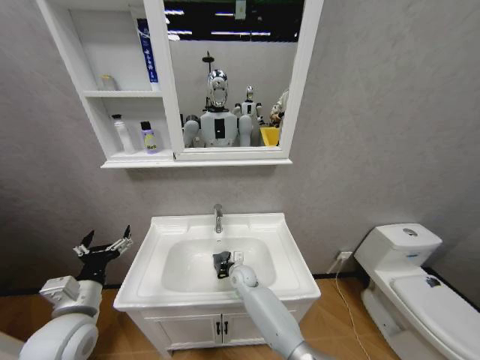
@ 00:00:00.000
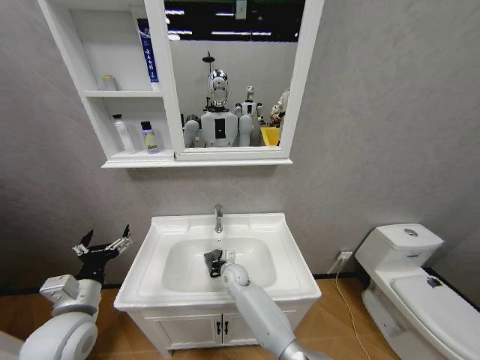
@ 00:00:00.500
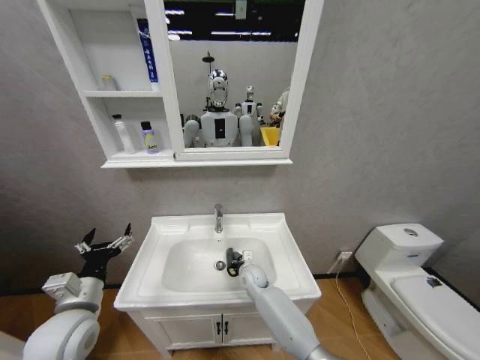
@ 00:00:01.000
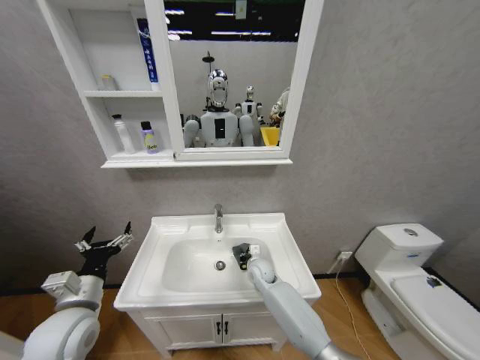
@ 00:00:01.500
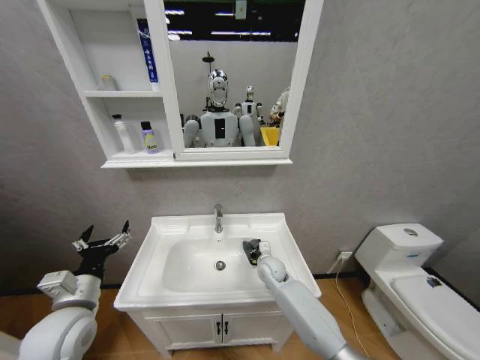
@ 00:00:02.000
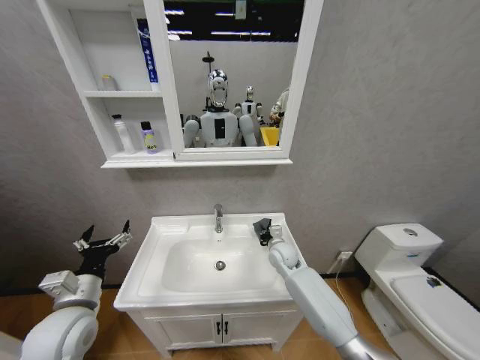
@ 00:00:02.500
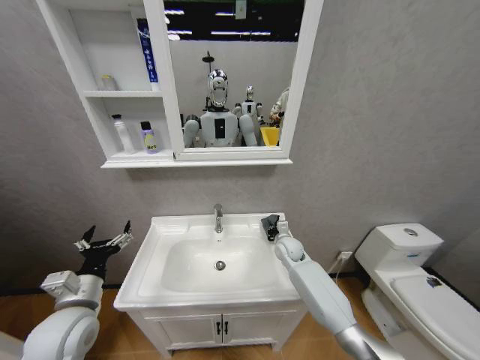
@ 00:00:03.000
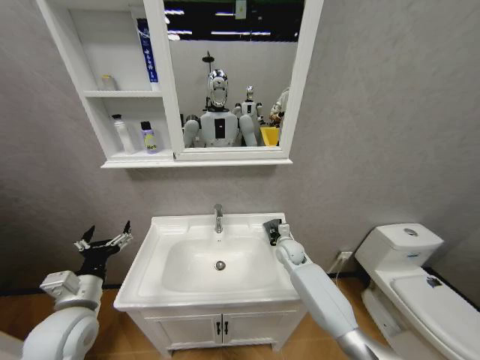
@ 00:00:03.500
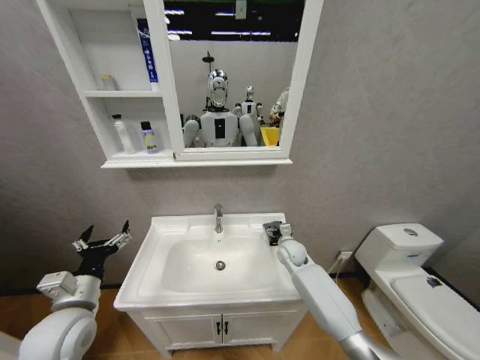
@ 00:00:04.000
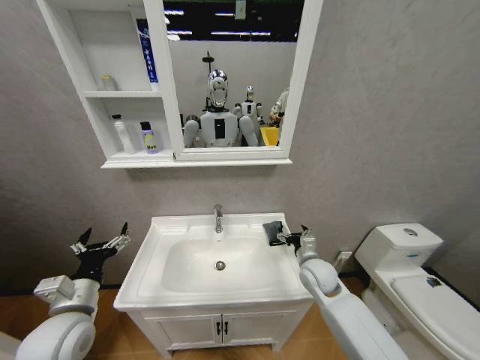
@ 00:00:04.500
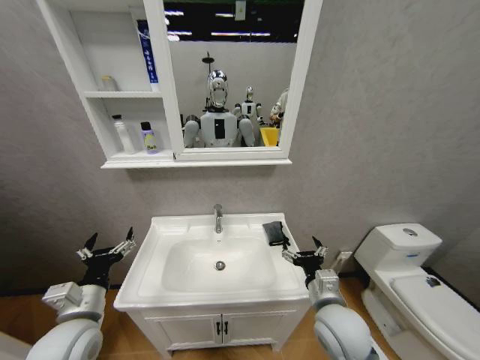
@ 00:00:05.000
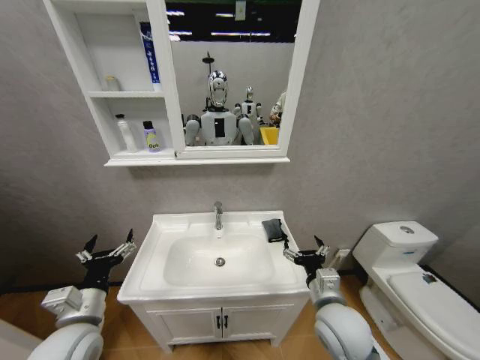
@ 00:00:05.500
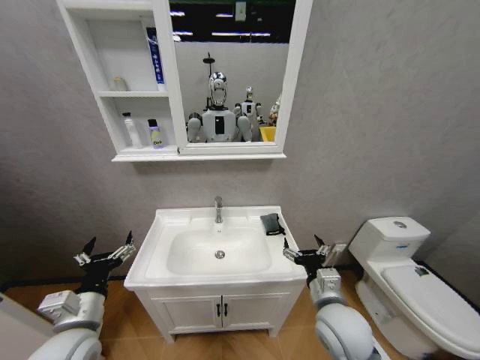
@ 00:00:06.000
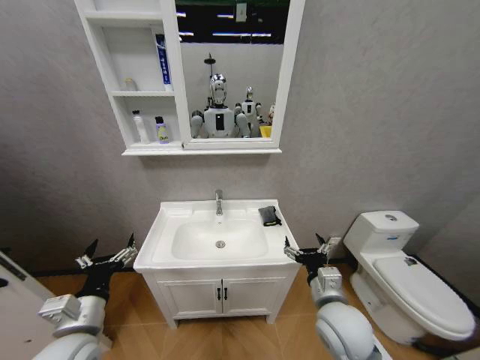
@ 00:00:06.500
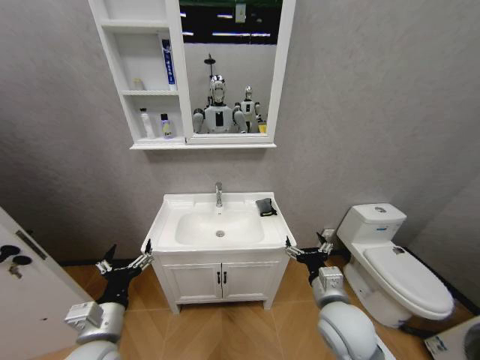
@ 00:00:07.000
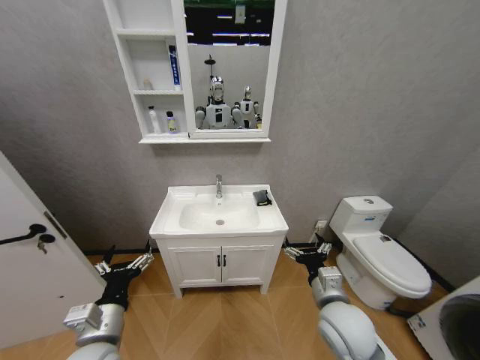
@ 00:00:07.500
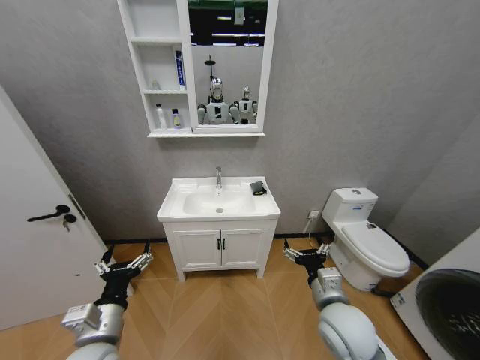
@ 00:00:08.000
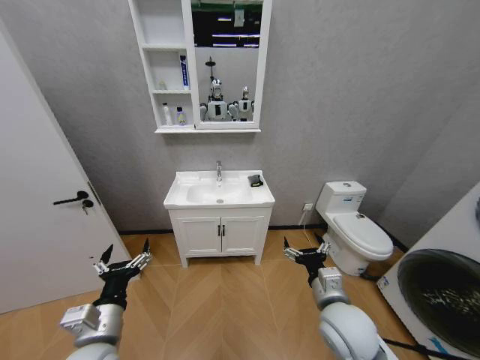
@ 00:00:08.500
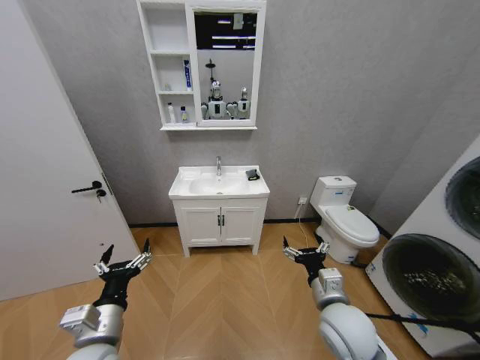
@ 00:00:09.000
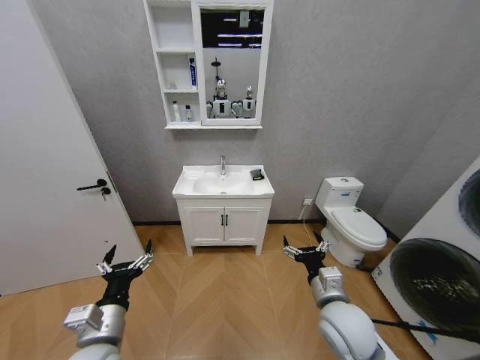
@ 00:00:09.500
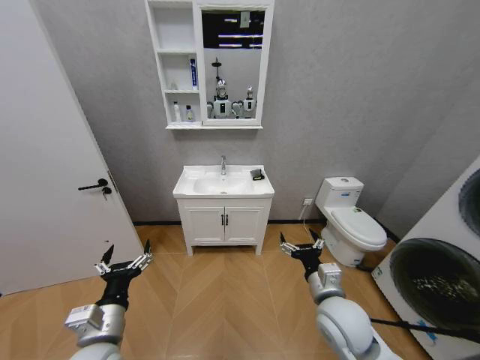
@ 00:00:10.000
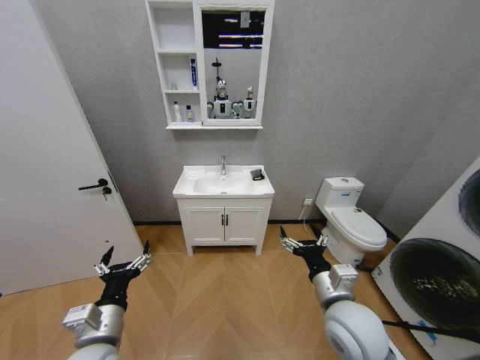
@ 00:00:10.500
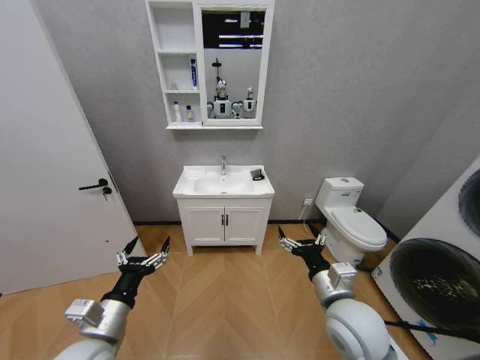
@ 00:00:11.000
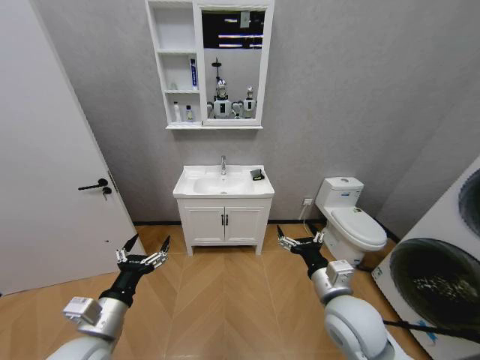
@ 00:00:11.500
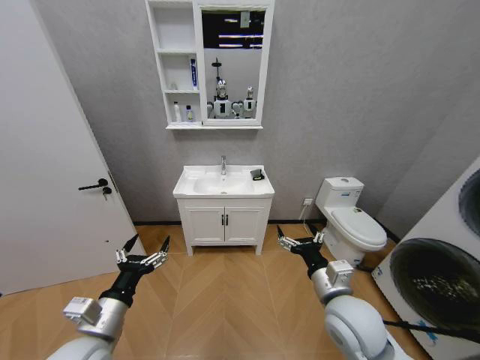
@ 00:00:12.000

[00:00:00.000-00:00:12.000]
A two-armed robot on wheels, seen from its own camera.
Task of the whole recording: Move facial cleanser and shampoo from washbasin to cabinet, then wipe washbasin with towel.
00:00:00.000 to 00:00:02.000: The right gripper shifts approximately 10 cm to the right and upward.
00:00:02.000 to 00:00:04.000: The right gripper heads to the right, covering roughly 5 cm, and opens its fingers.
00:00:04.000 to 00:00:06.000: The right gripper is displaced backward and upward by roughly 25 cm.
00:00:06.000 to 00:00:08.000: The left gripper moves roughly 5 cm.
00:00:10.000 to 00:00:12.000: The grippers make only small movements.

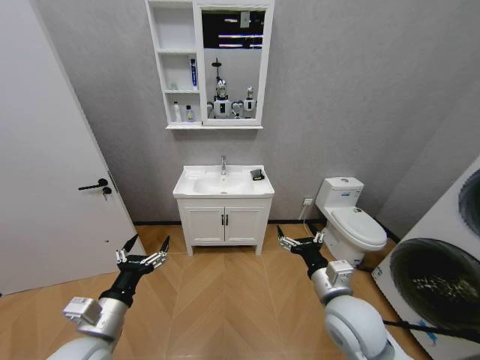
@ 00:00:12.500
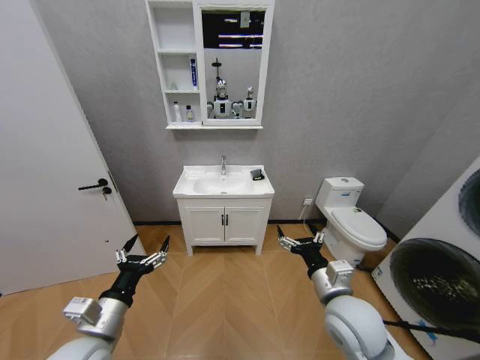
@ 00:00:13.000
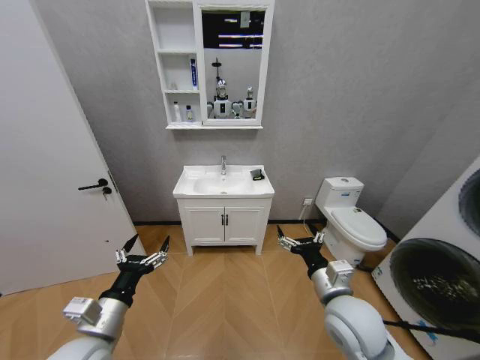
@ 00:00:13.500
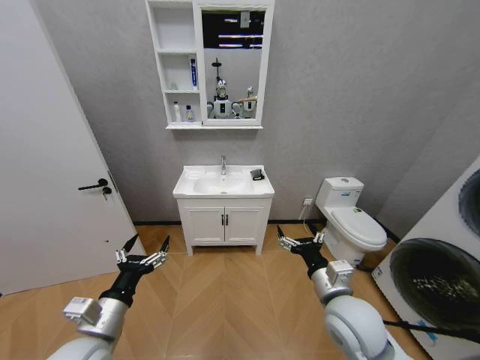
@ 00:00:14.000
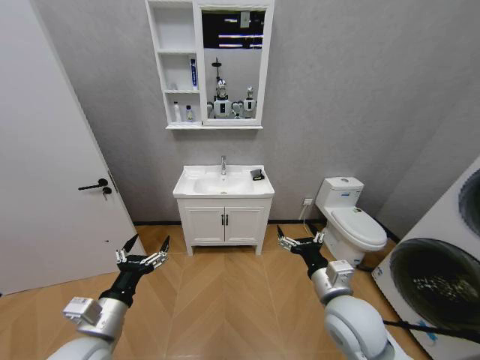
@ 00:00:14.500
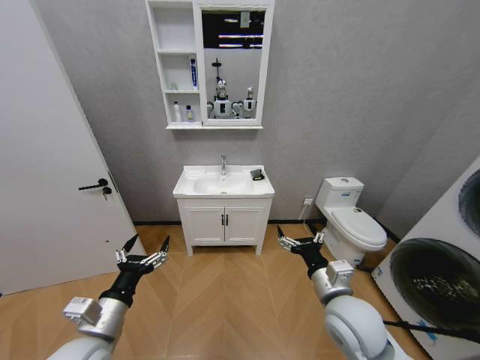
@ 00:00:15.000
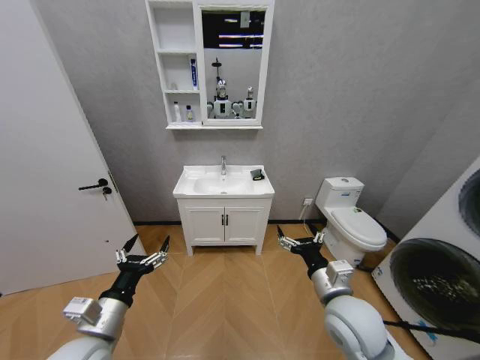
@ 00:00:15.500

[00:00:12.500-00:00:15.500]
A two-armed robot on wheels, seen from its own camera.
Task of the whole recording: Move facial cleanser and shampoo from washbasin to cabinet, then wipe washbasin with towel.
00:00:12.500 to 00:00:15.500: The two grippers keep their place.

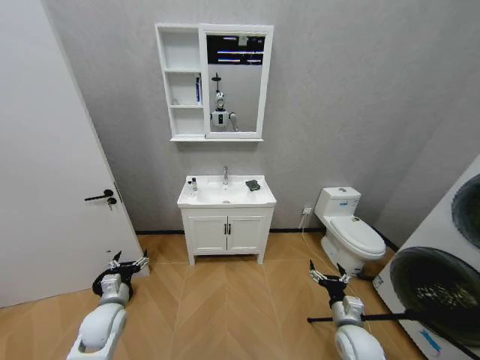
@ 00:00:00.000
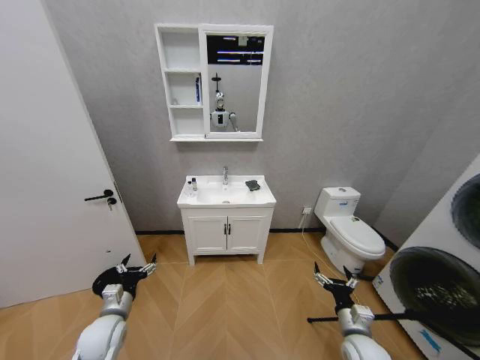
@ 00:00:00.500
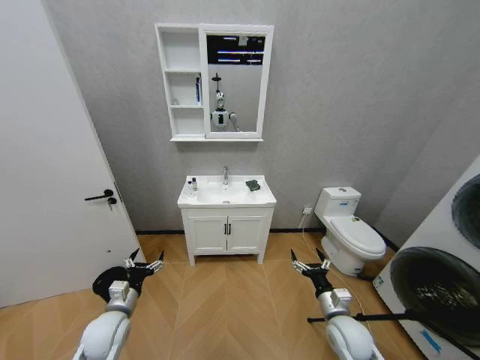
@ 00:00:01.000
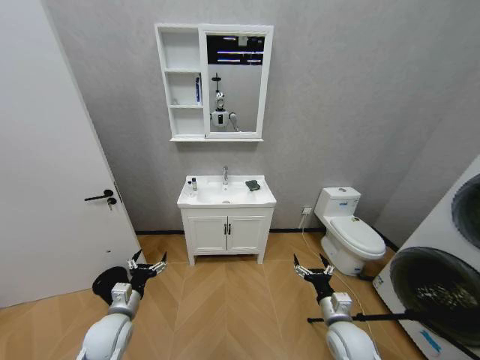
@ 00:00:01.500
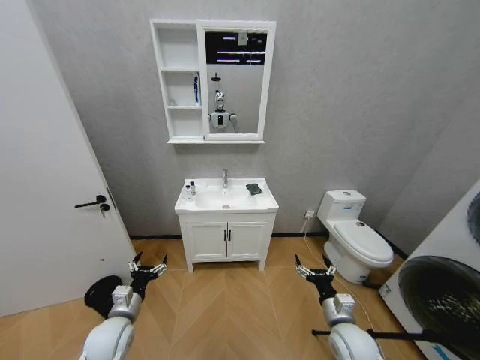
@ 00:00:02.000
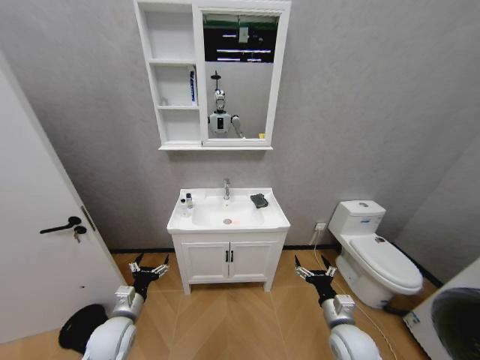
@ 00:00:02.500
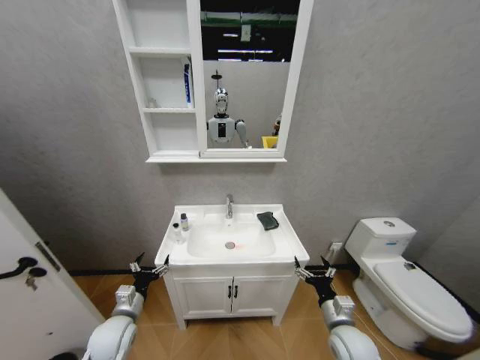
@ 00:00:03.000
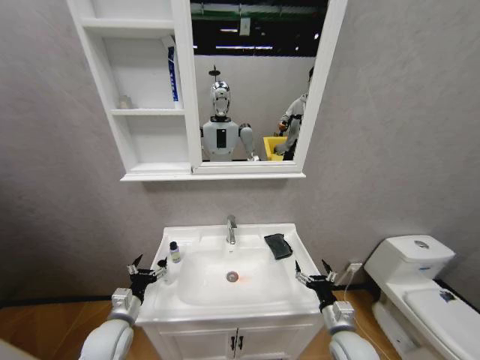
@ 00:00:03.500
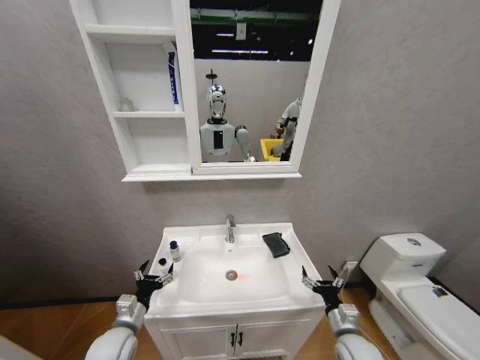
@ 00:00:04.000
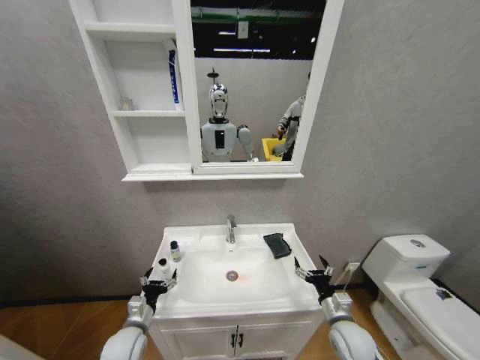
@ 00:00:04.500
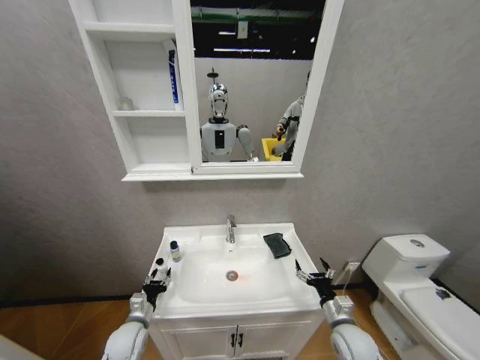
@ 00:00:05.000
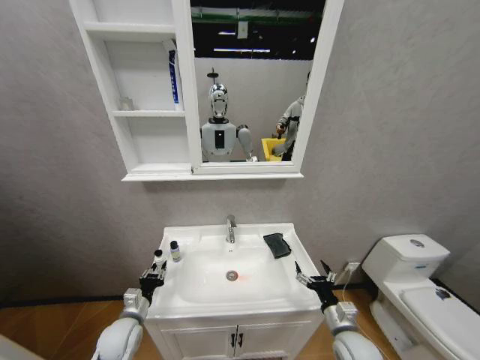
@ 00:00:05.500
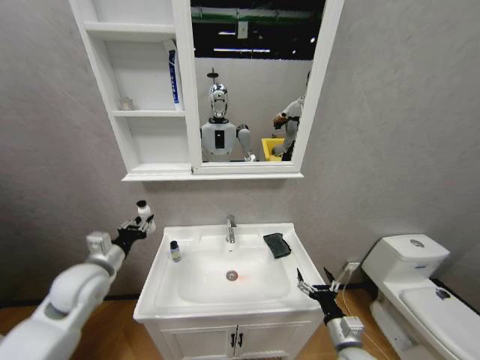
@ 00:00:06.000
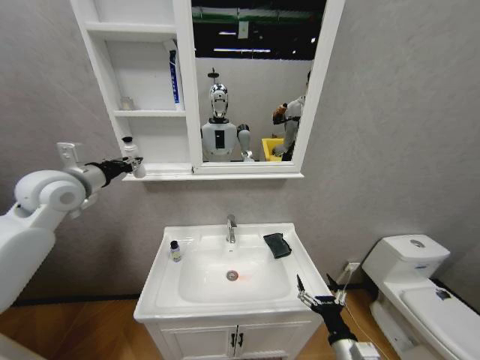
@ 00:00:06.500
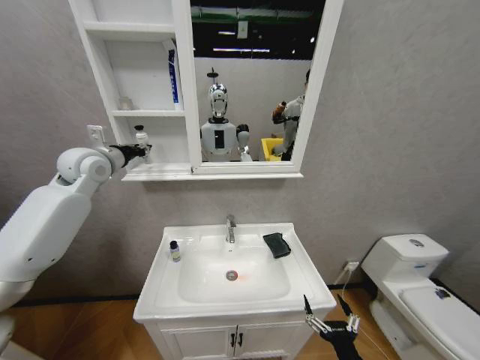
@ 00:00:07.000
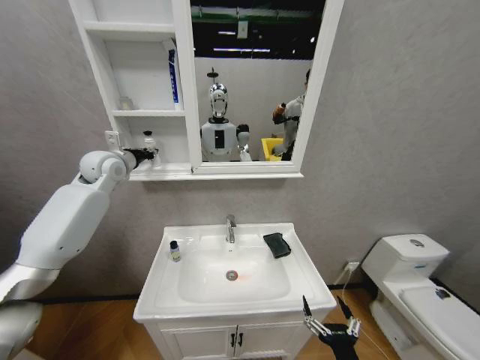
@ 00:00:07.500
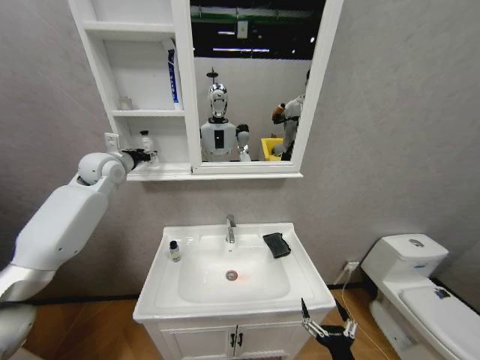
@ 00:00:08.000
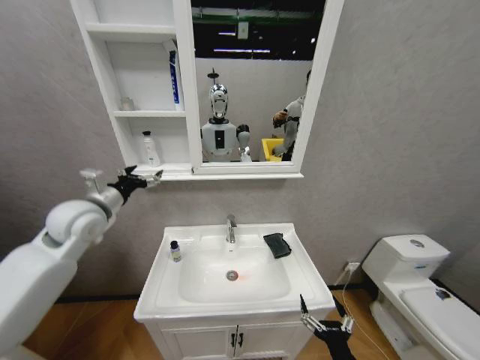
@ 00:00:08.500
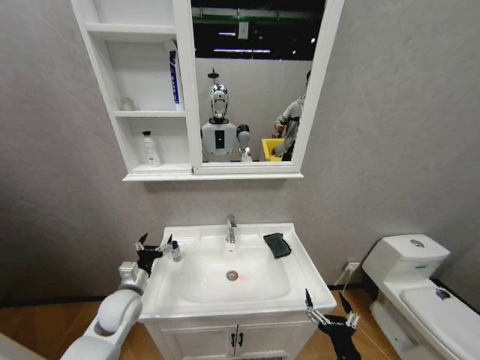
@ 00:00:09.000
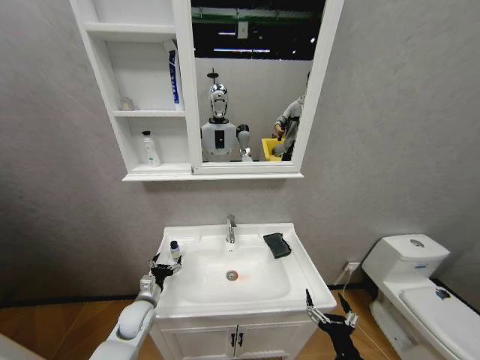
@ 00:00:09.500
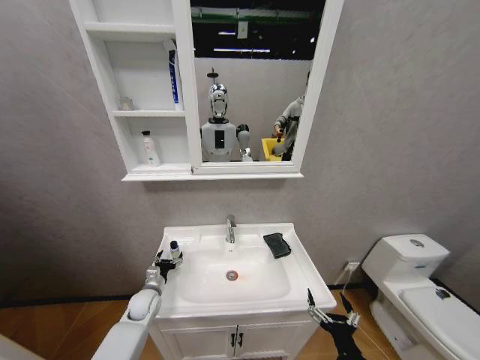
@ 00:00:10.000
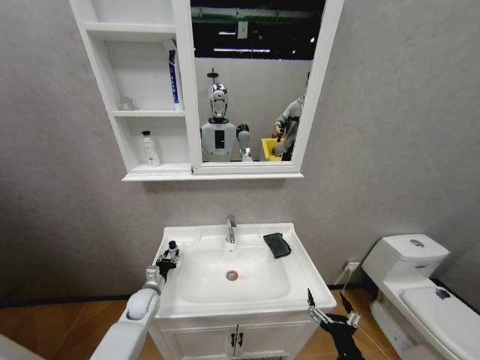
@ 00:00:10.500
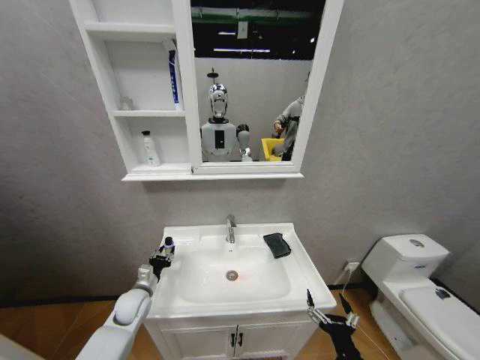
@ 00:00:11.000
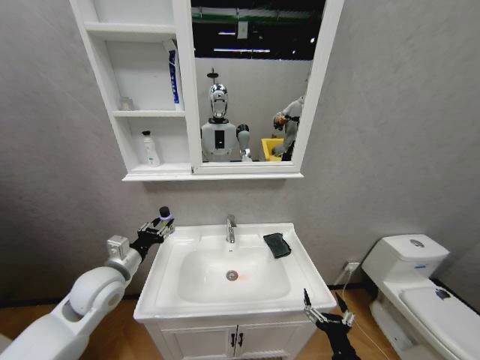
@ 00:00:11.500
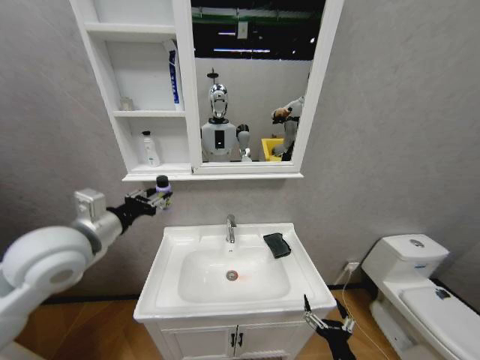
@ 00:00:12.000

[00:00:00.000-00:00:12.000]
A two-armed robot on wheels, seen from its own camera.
Task of the whole recording: Move facial cleanser and shampoo from washbasin to cabinet, then wipe washbasin with towel.
00:00:04.000 to 00:00:06.000: The left gripper shifts some 15 cm upward, and closes up.
00:00:06.000 to 00:00:08.000: The right gripper shifts roughly 15 cm backward and to the left, while the left gripper heads upward and forward, covering approximately 30 cm.
00:00:08.000 to 00:00:10.000: The left gripper travels downward by some 40 cm, and opens up.
00:00:10.000 to 00:00:12.000: The left gripper heads upward, covering some 35 cm, and closes its fingers.
